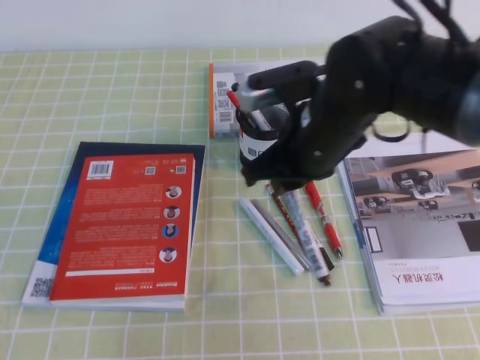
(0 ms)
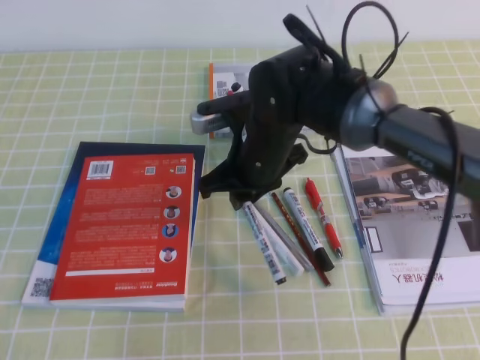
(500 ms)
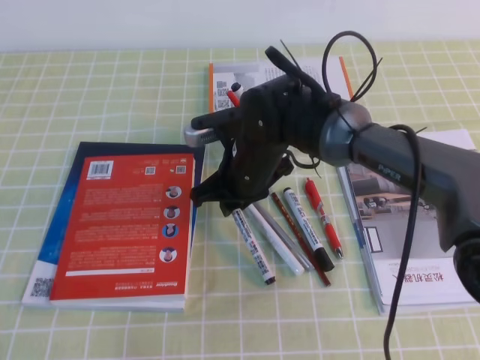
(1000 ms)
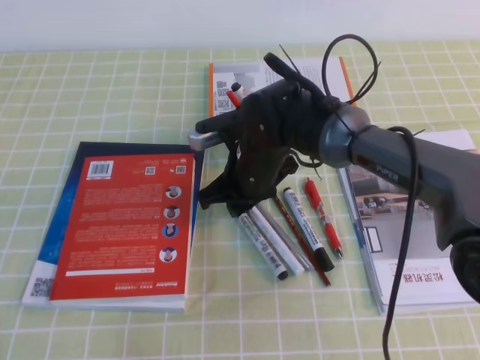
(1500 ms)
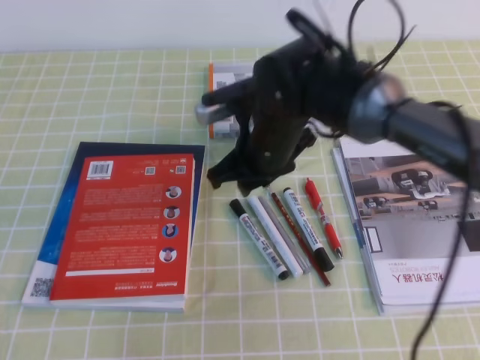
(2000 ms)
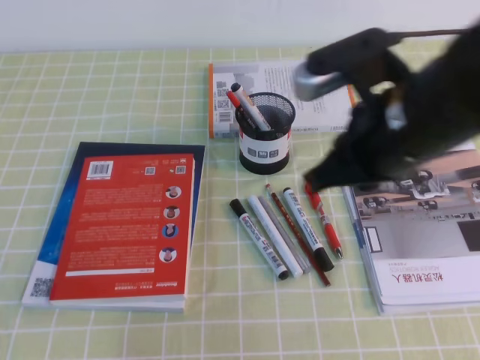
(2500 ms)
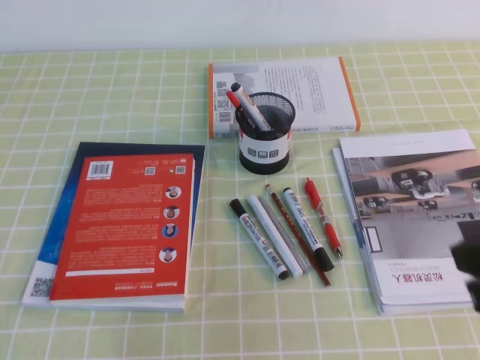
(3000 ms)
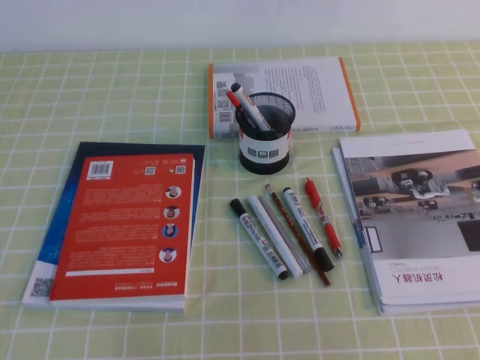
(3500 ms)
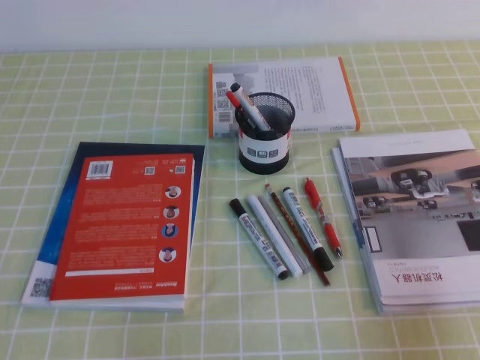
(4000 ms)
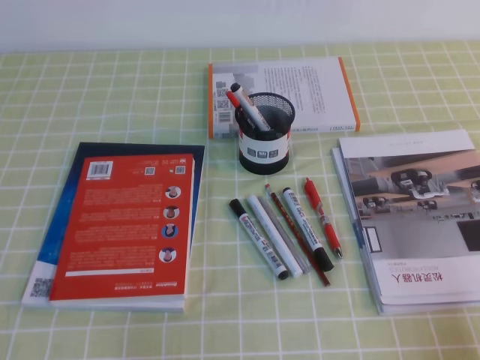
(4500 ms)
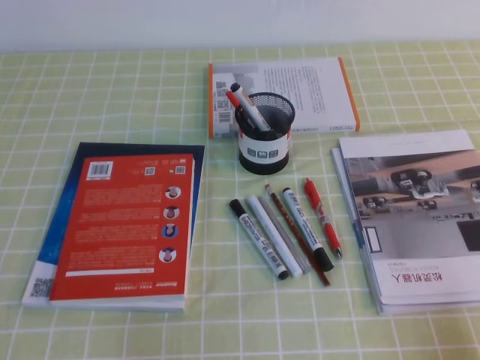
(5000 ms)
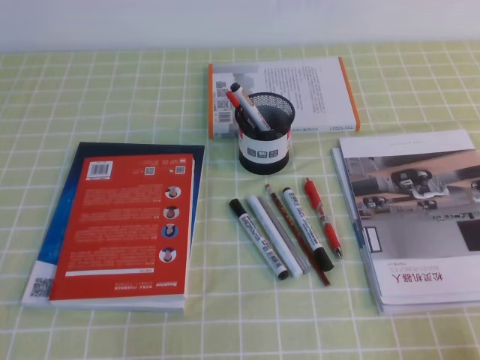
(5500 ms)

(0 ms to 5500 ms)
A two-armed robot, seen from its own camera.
Step, 0 ms - 5500 ms: Pick up the pen from the pen holder.
2000 ms - 3500 ms: The right gripper moves backward and to the right, roughly 35 cm, and closes.
3500 ms - 5500 ms: The right gripper moves downward, some 15 cm.
